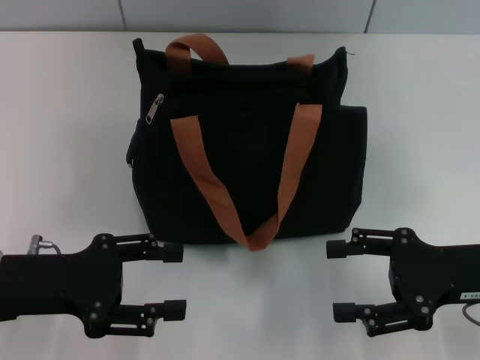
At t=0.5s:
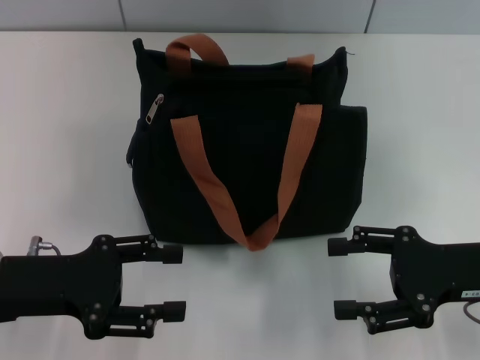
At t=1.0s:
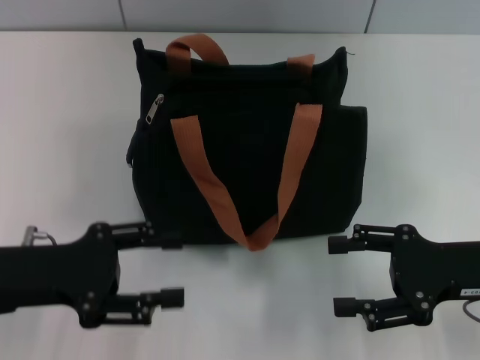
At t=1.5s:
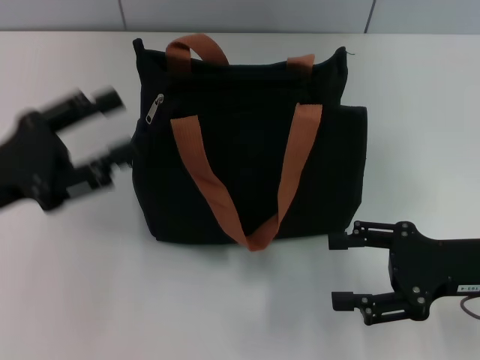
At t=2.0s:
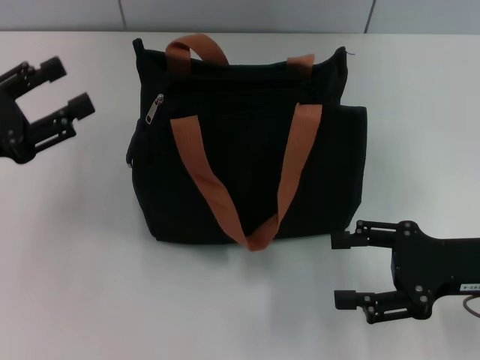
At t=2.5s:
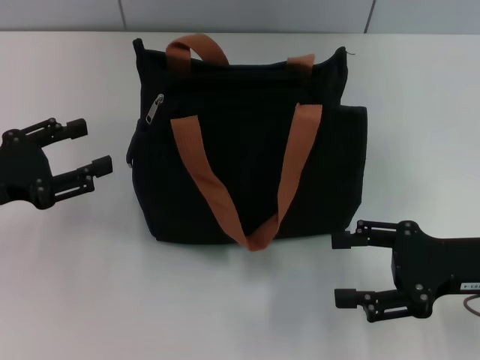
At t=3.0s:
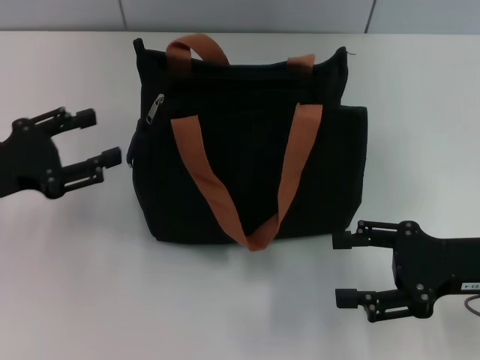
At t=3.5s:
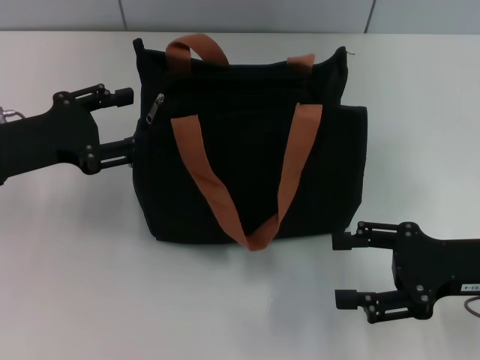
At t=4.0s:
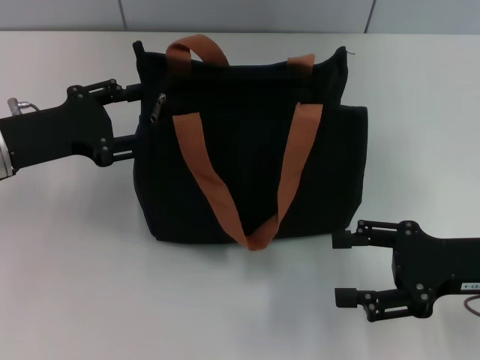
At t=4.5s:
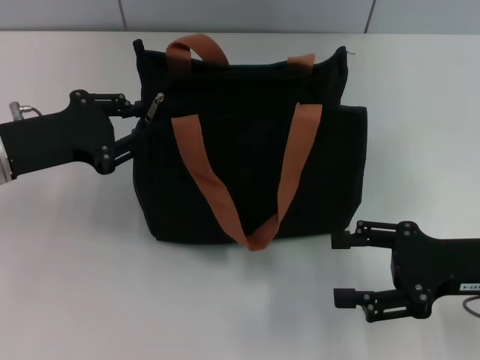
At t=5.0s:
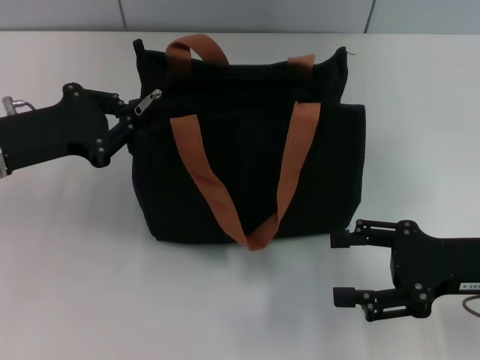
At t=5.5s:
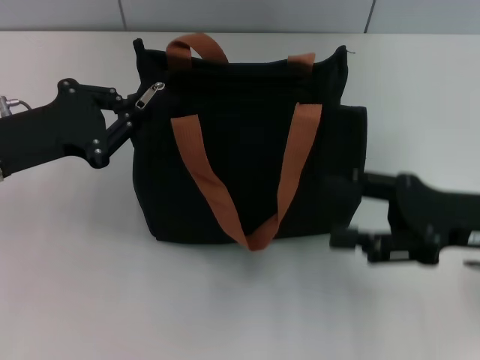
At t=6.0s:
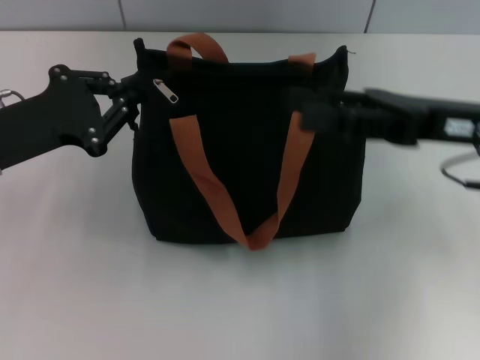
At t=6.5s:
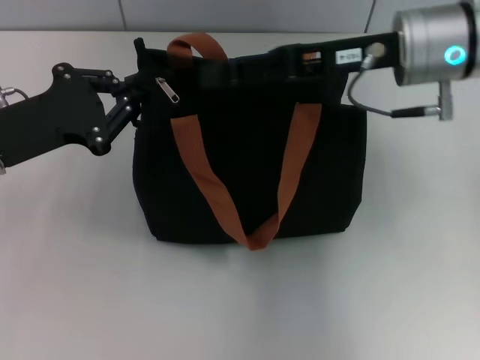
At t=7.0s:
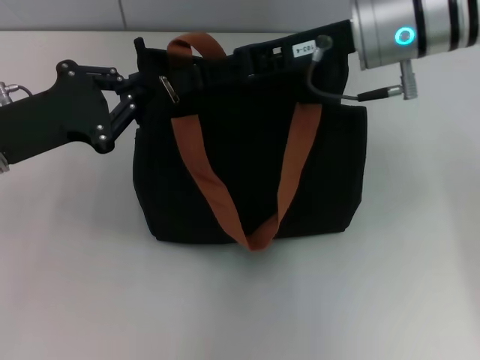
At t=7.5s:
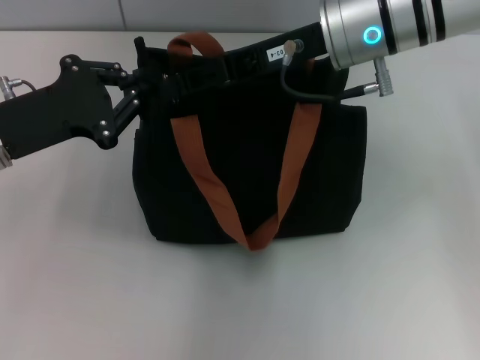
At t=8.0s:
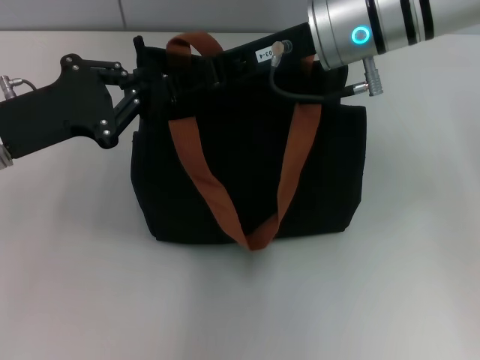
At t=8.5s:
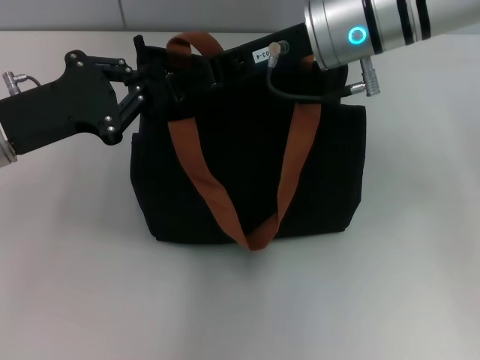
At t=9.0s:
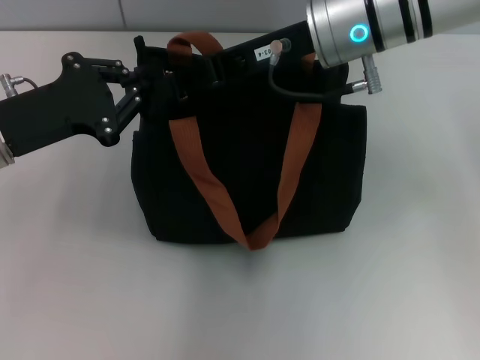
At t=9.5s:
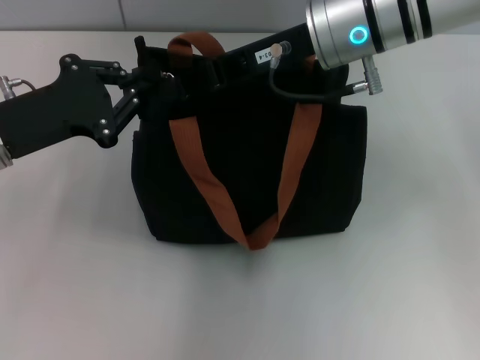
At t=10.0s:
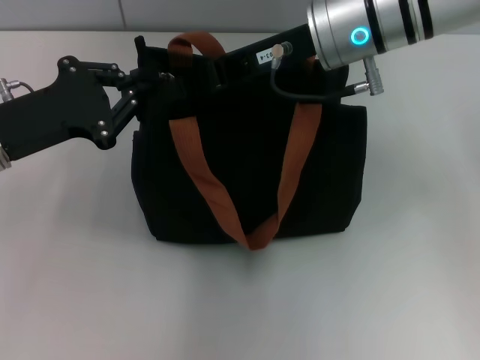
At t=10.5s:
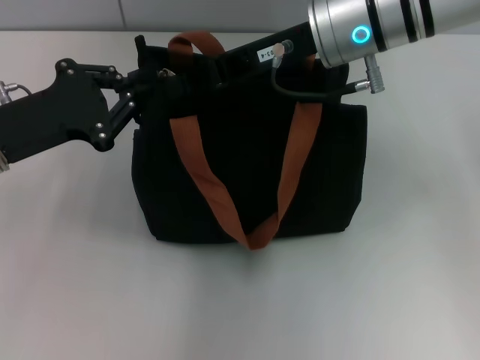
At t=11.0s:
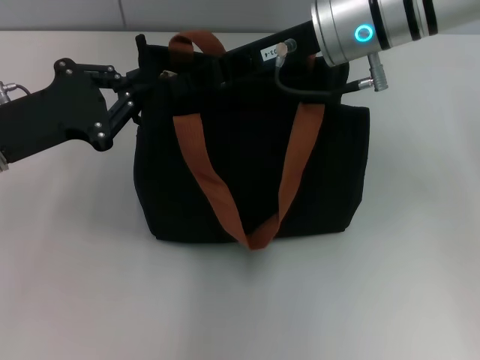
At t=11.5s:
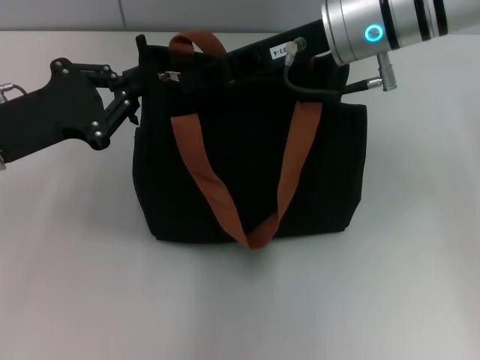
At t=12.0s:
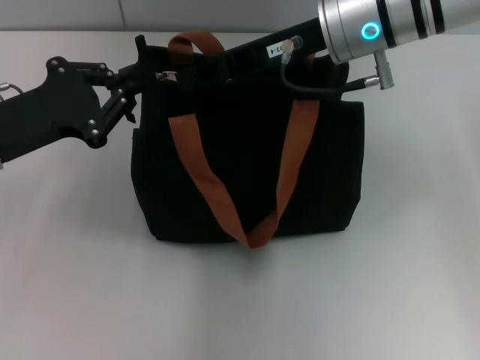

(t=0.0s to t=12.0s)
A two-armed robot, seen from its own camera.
t=0.0s - t=2.0s: The left gripper is displaced to the left by approximately 5 cm.
t=2.0s - t=4.0s: The left gripper moves forward, about 5 cm.
t=4.0s - t=6.0s: The left gripper closes its fingers. Meanwhile the right gripper is displaced upward and forward by roughly 10 cm.
t=6.0s - t=8.0s: The right gripper goes some 15 cm to the left and forward, and closes.
t=8.0s - t=10.0s: The right gripper closes its fingers.
t=10.0s - t=12.0s: Both grippers stay about where they are.

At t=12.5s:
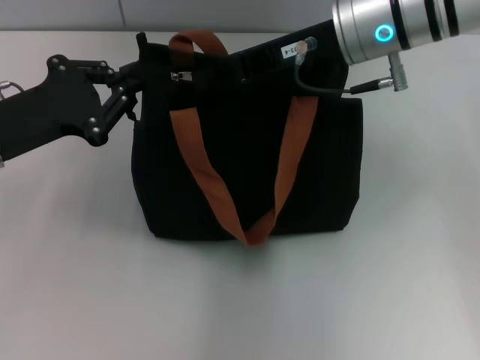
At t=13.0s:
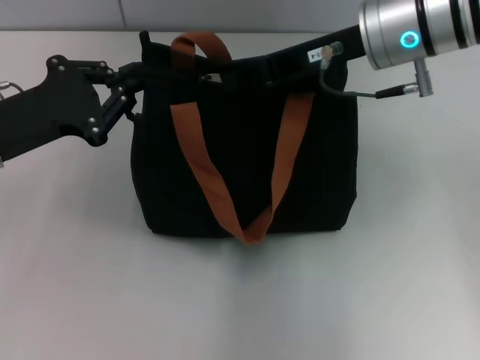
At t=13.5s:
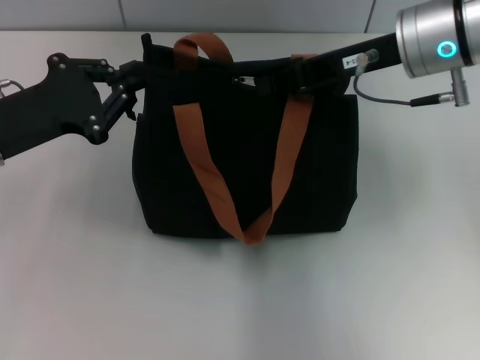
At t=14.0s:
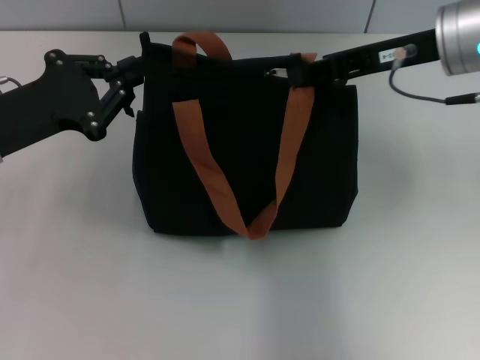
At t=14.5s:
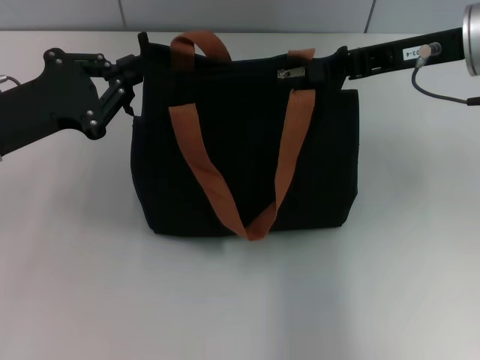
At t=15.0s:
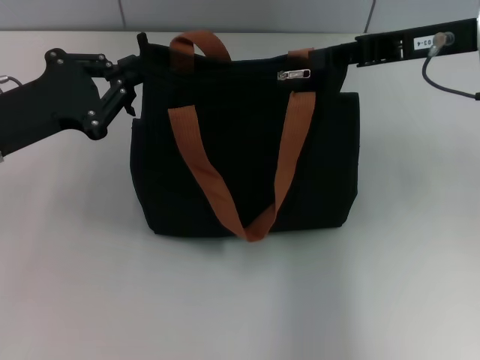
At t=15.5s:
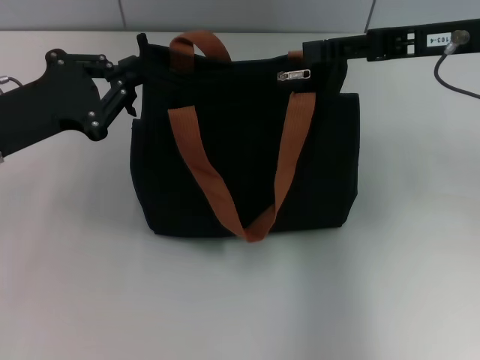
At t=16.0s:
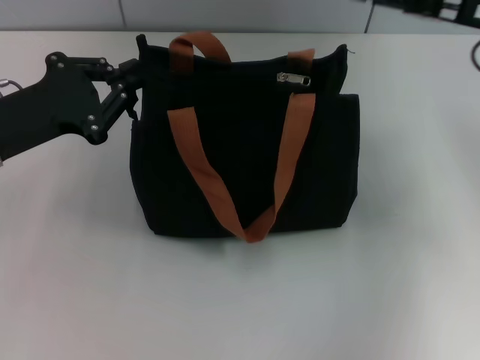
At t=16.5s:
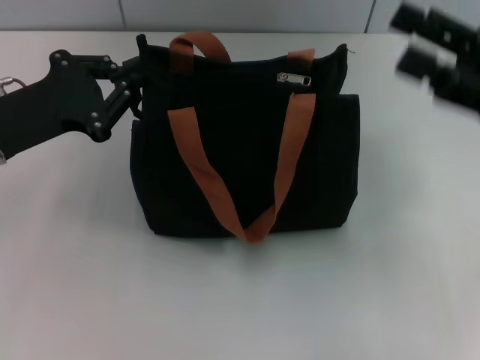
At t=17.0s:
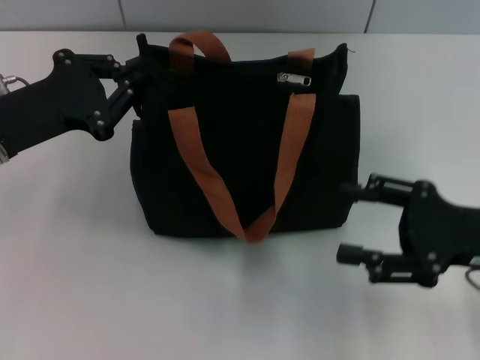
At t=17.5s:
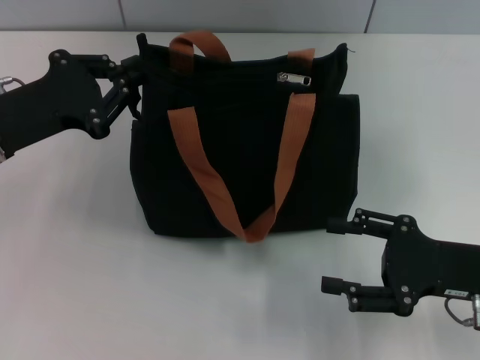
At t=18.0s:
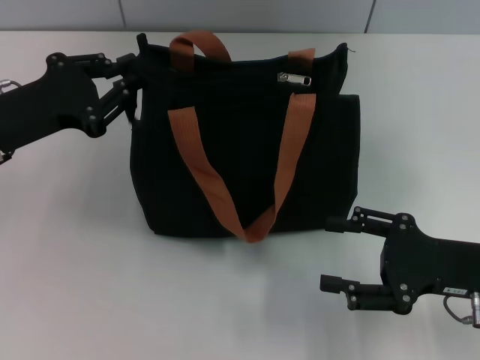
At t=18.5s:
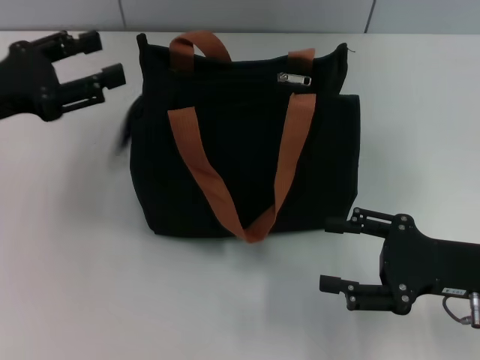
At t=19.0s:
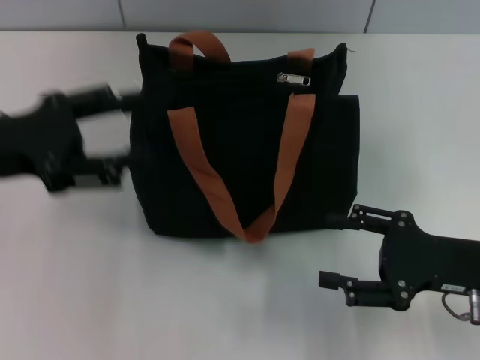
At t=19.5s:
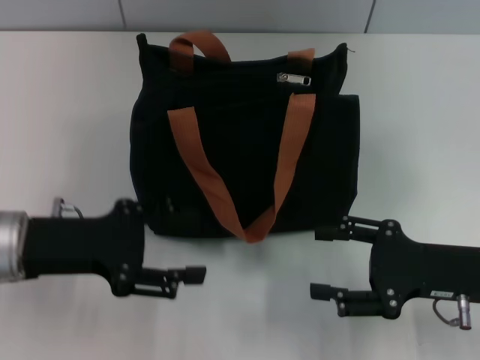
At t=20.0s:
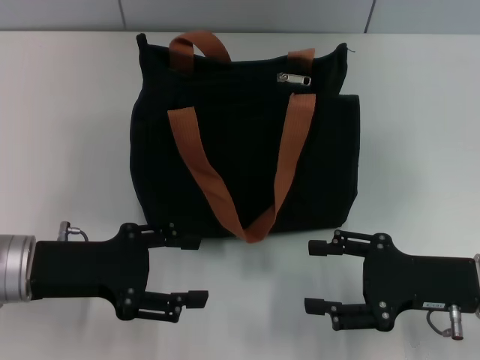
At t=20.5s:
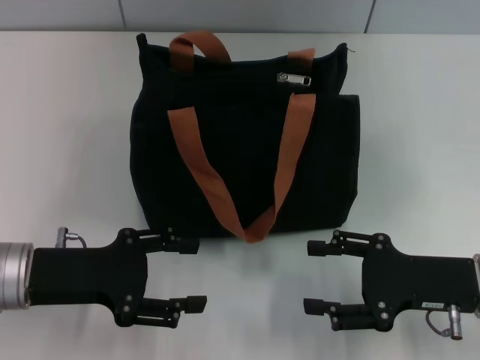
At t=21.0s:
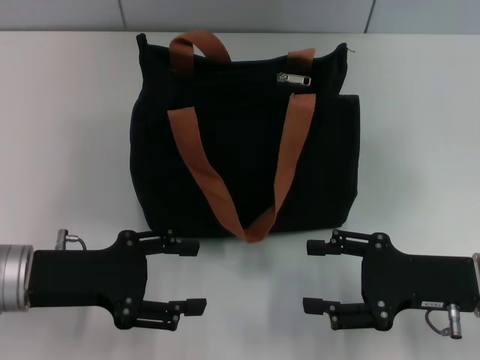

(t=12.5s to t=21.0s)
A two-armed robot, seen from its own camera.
Step, t=12.5s - t=15.0s: Pull up the zipper with your right hand.
Step, t=15.5s - t=18.5s: Grab the zipper with your left hand.
t=12.5s - t=14.5s: The right gripper moves to the right, about 10 cm.
t=14.5s - t=16.5s: The right gripper shifts approximately 15 cm backward, to the right and downward, and opens its fingers.
t=16.5s - t=19.0s: The right gripper heads downward and backward, covering roughly 10 cm. Meanwhile the left gripper opens up.
t=19.0s - t=21.0s: The left gripper shifts approximately 10 cm downward.
